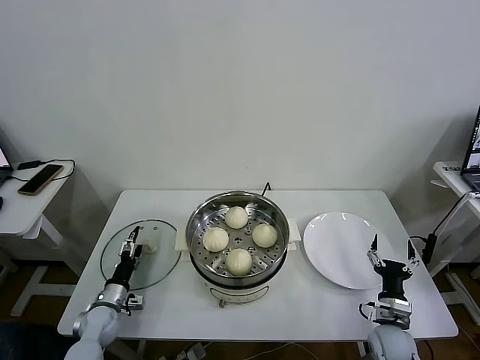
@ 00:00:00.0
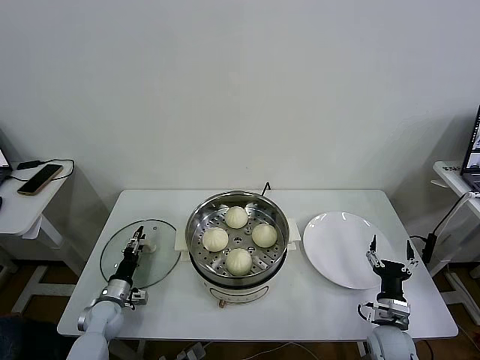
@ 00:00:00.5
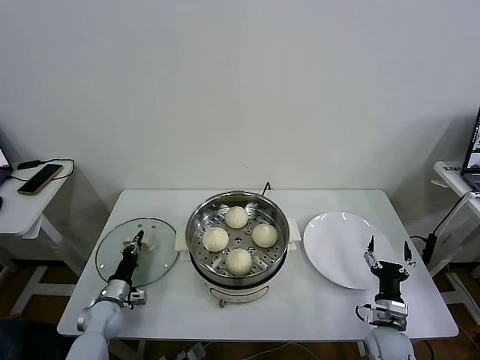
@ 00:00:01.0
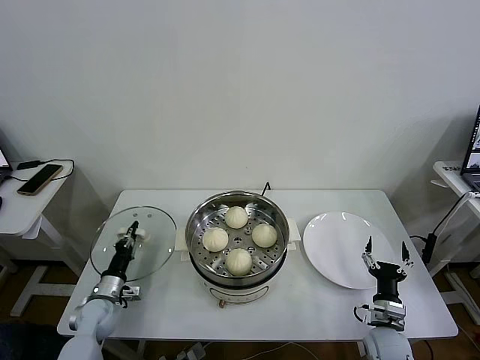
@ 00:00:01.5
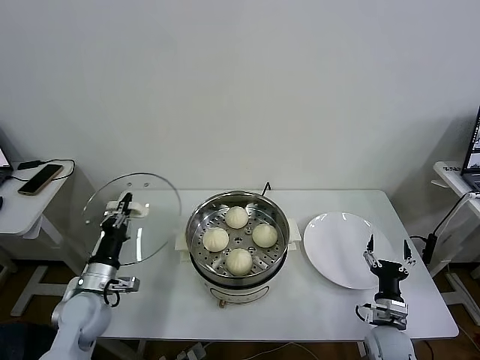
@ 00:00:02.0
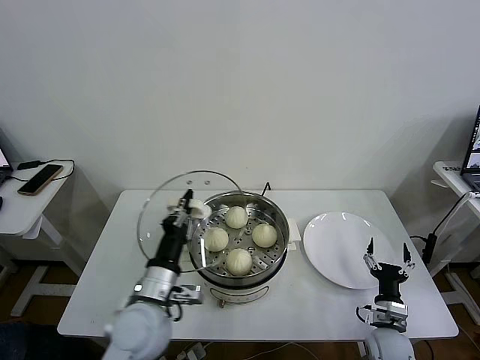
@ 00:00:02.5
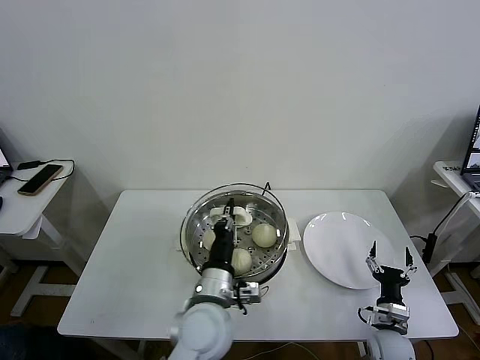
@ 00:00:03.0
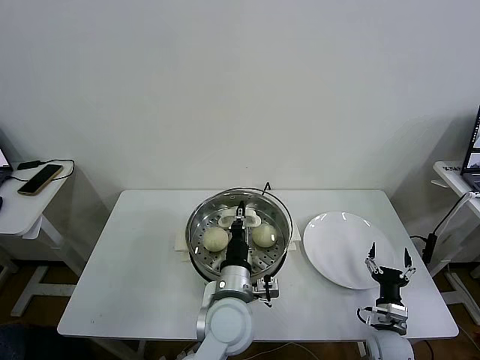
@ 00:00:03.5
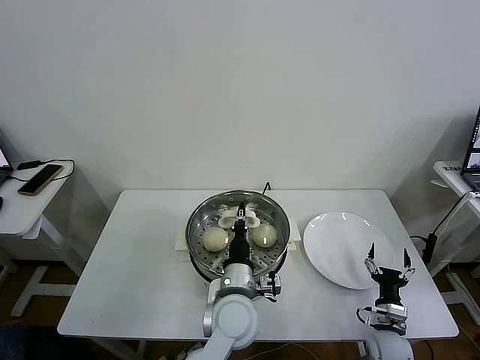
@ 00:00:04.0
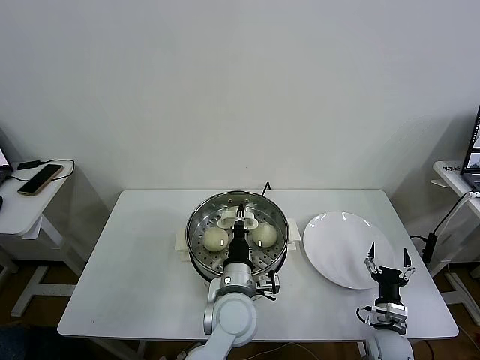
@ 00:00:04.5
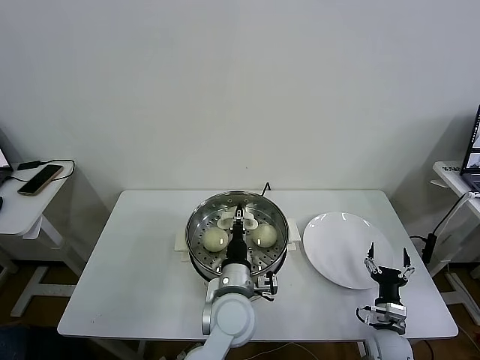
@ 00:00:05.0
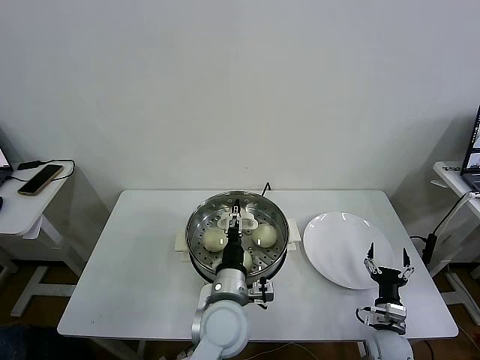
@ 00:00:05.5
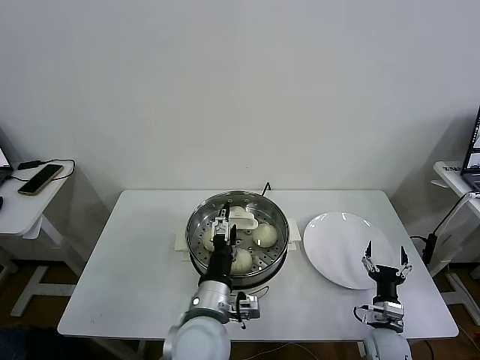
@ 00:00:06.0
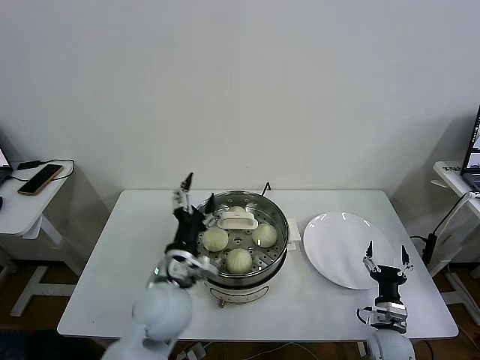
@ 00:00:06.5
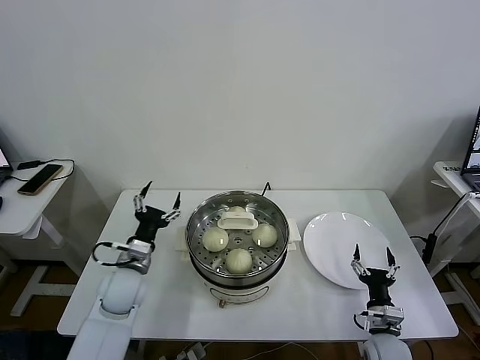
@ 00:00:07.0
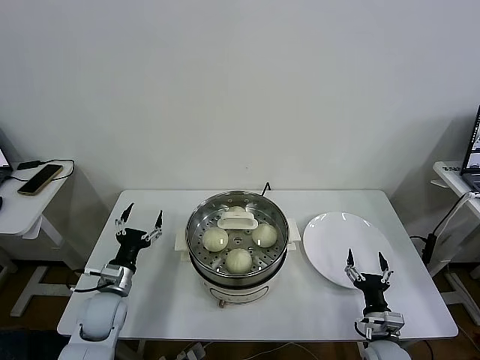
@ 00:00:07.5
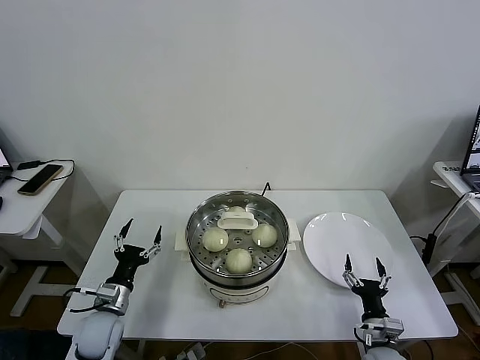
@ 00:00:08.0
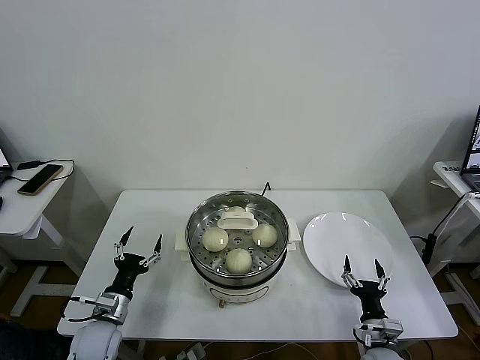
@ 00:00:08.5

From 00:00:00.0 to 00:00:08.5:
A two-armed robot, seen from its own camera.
Task of the whole recording: take steamed baozi put them in steamer then cover it.
Step, from 00:00:01.5 to 00:00:05.0: Place the pot lid on the steamer with left gripper.
From 00:00:00.0 to 00:00:02.0: The left gripper heads upward, covering roughly 15 cm, and closes its fingers.
From 00:00:02.0 to 00:00:04.0: The left gripper goes about 30 cm to the right.
From 00:00:04.0 to 00:00:06.5: The left gripper moves to the left and upward, approximately 10 cm, and opens.
From 00:00:06.5 to 00:00:08.5: The right gripper moves some 5 cm. The left gripper shifts roughly 25 cm to the left and downward.
